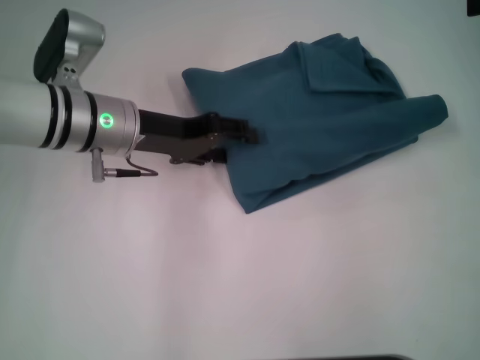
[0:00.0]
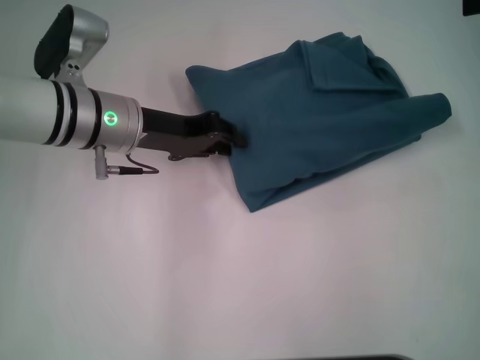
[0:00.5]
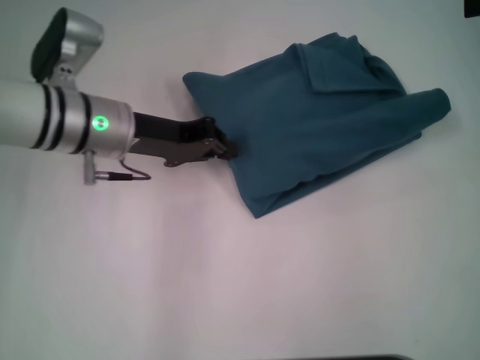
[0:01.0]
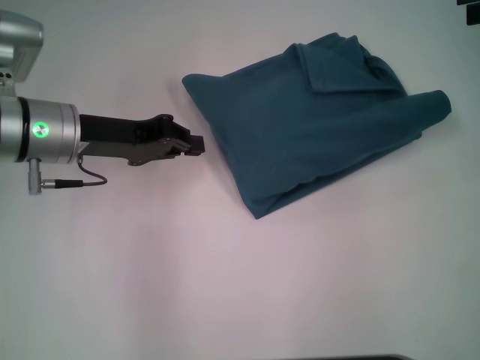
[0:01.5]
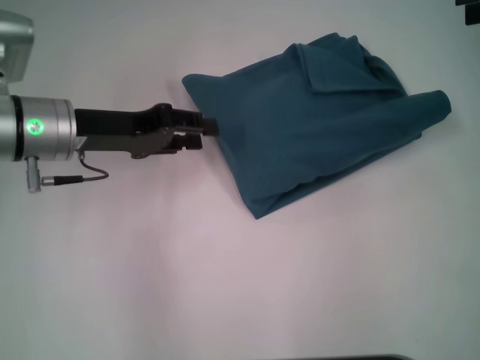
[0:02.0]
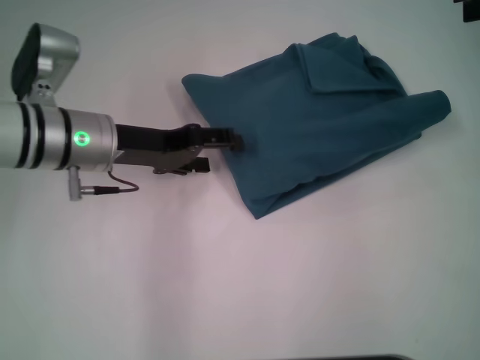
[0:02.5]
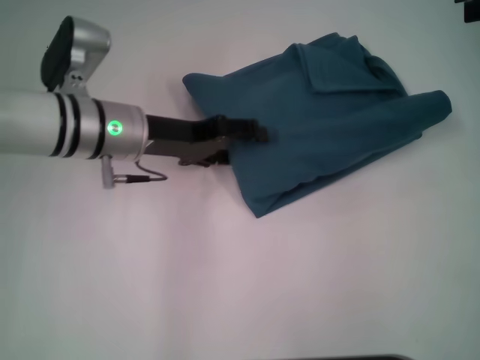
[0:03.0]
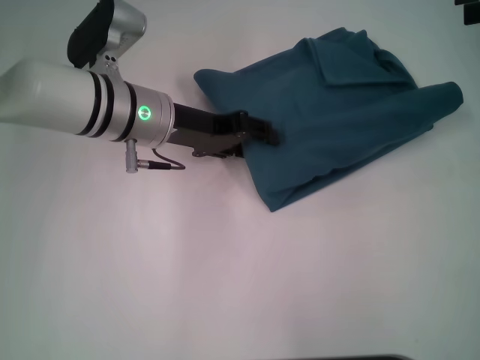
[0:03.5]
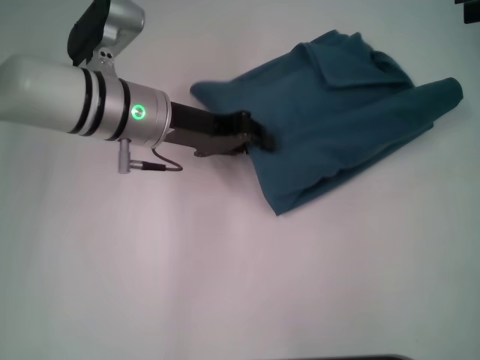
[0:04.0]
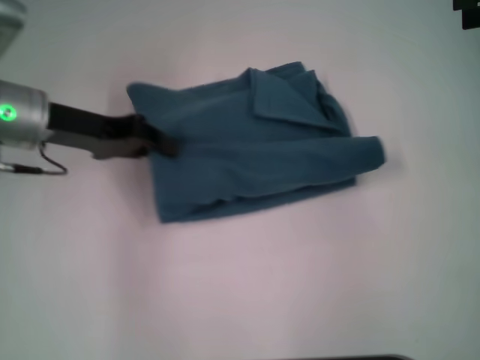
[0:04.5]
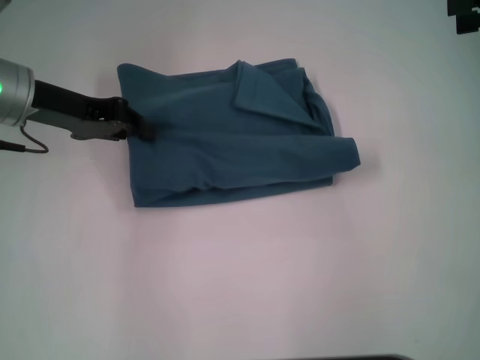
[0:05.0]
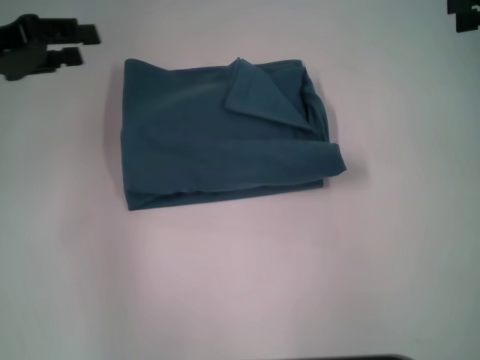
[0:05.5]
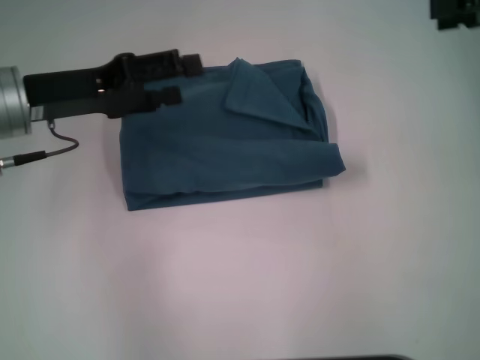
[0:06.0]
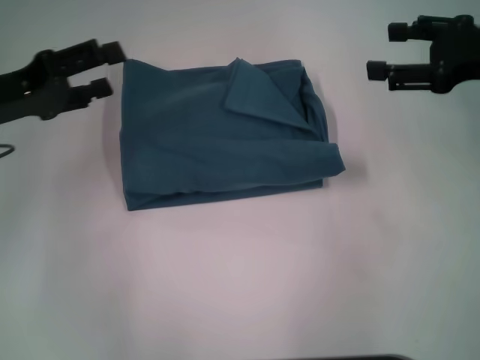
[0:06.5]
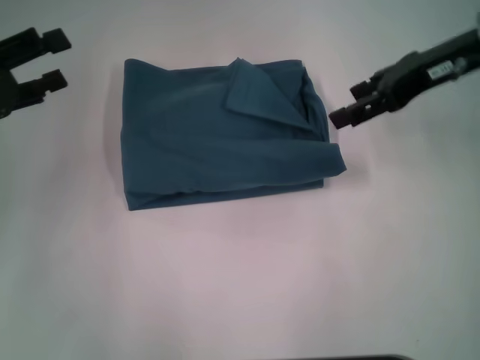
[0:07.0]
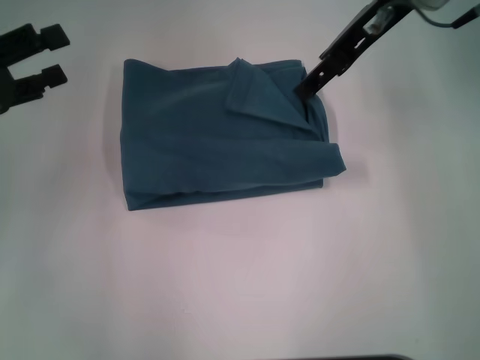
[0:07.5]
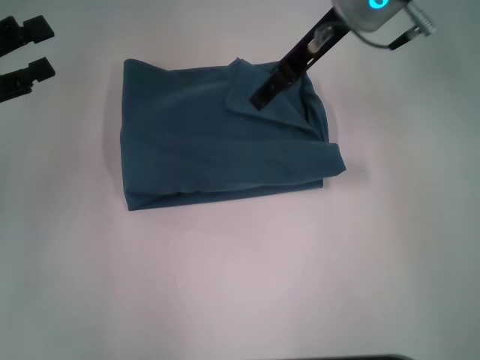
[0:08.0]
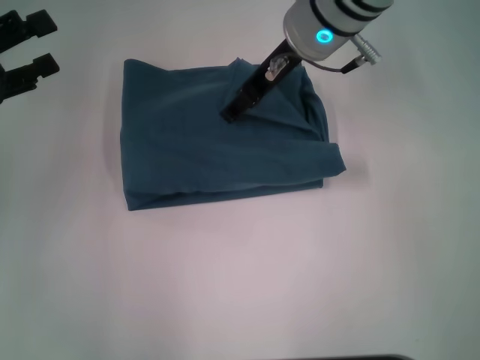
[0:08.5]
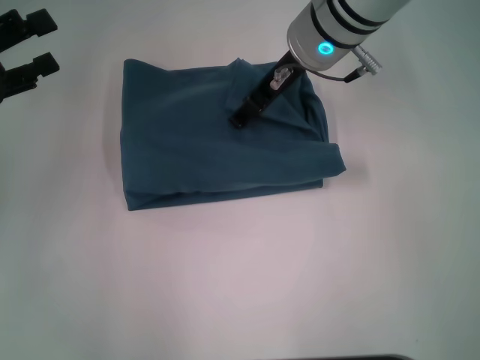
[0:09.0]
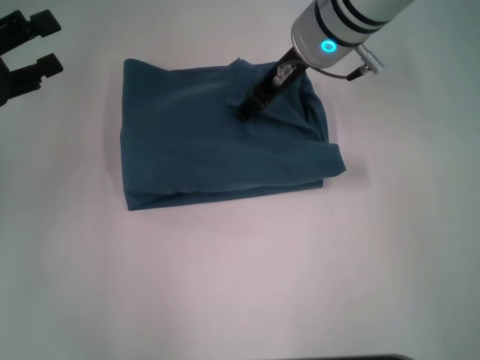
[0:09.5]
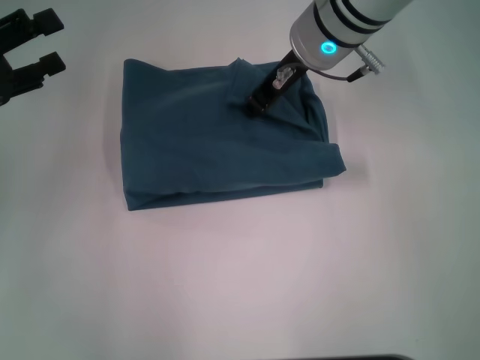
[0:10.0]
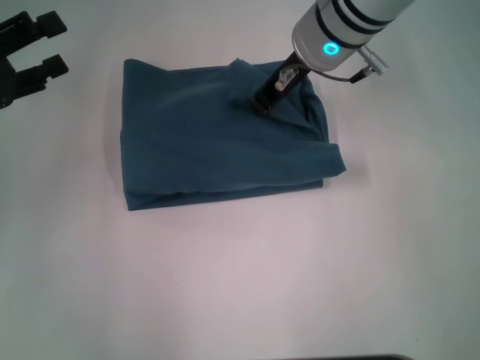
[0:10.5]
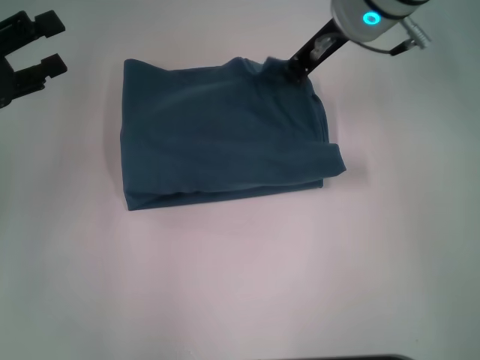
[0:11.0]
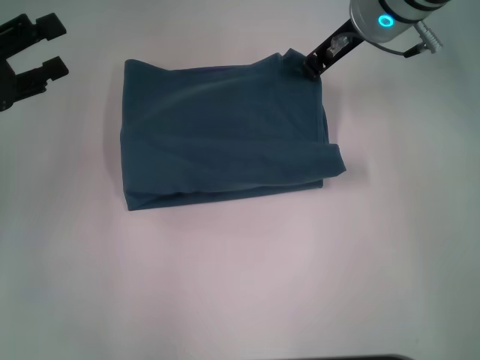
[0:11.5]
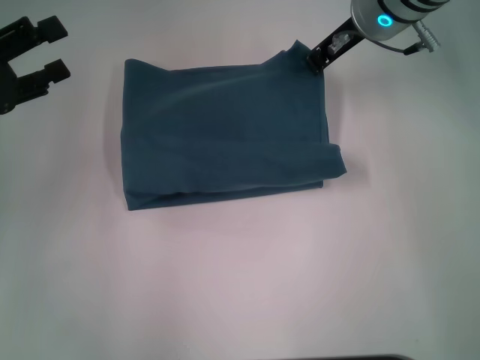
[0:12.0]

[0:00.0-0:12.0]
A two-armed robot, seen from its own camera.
0.0 to 2.0 s: The left gripper heads to the left, covering roughly 5 cm, and closes.
2.0 to 4.0 s: The left gripper shifts about 10 cm to the right, and opens, then closes once more.
4.0 to 6.0 s: The left gripper shifts some 10 cm to the left, and opens its fingers.
6.0 to 8.0 s: The left gripper moves to the left, roughly 10 cm; the right gripper travels to the left by approximately 25 cm.
8.0 to 10.0 s: The right gripper ends up some 5 cm from where it was, and closes its fingers.
10.0 to 12.0 s: The right gripper goes some 5 cm to the right, and closes.

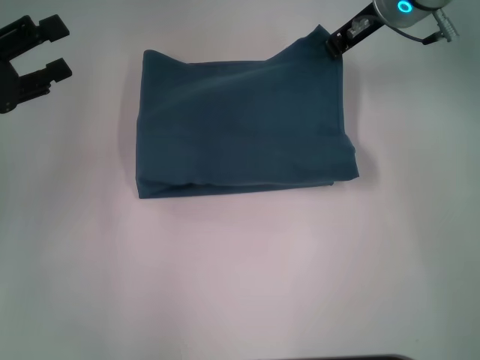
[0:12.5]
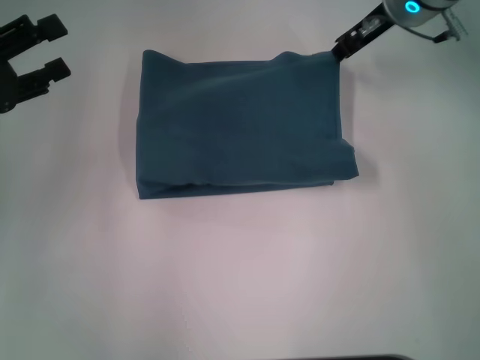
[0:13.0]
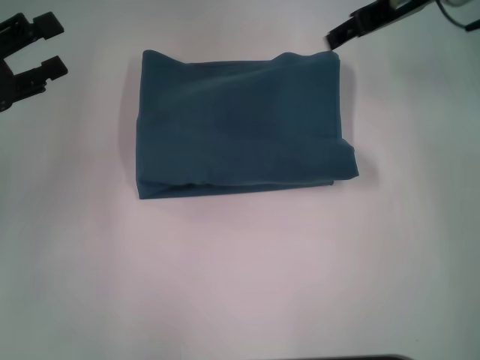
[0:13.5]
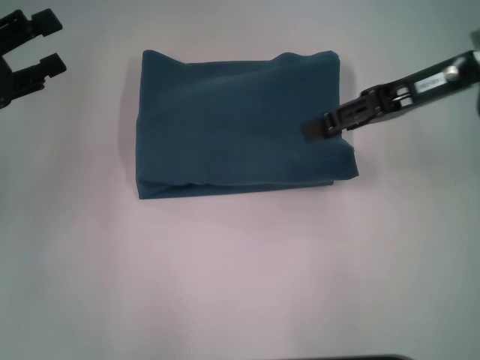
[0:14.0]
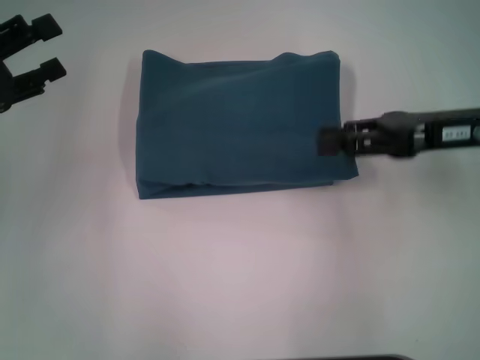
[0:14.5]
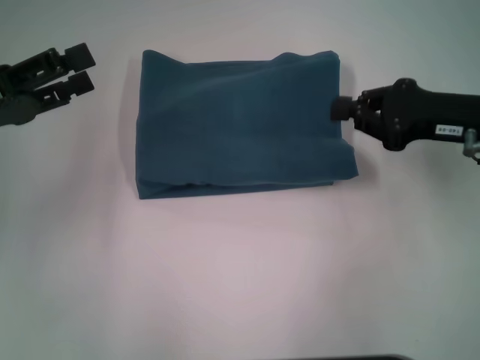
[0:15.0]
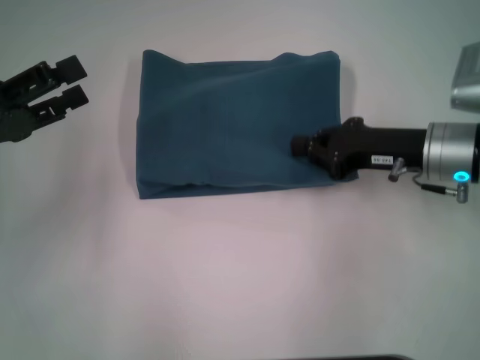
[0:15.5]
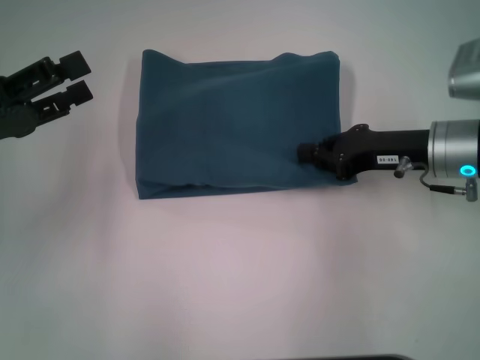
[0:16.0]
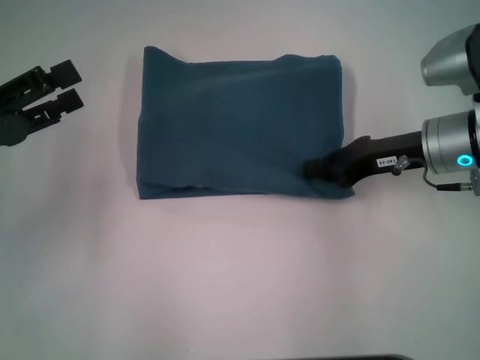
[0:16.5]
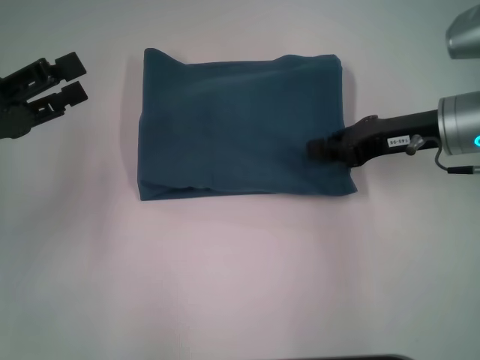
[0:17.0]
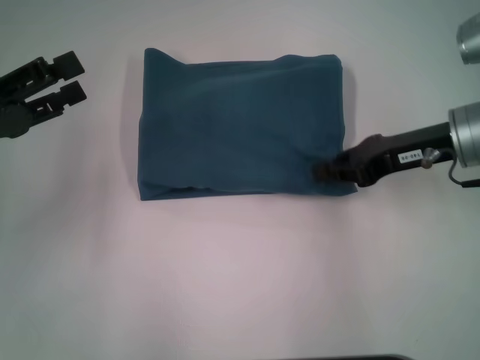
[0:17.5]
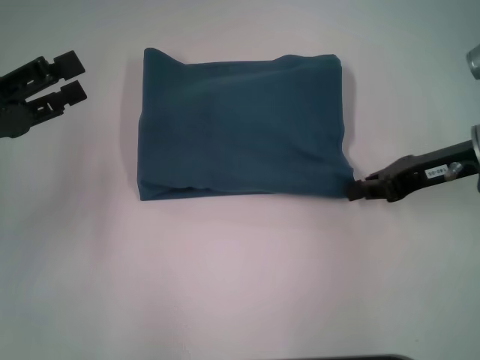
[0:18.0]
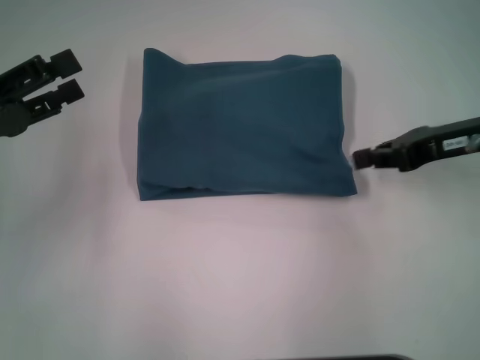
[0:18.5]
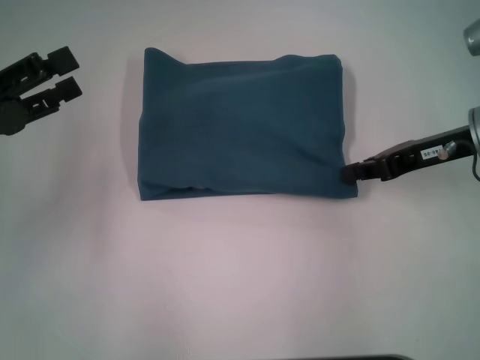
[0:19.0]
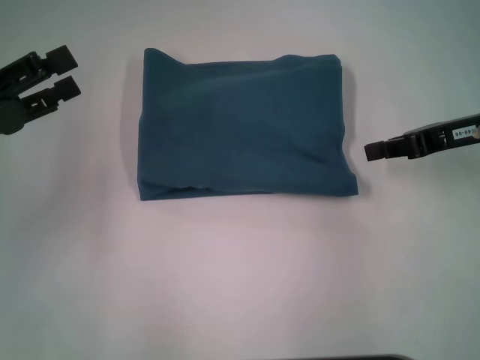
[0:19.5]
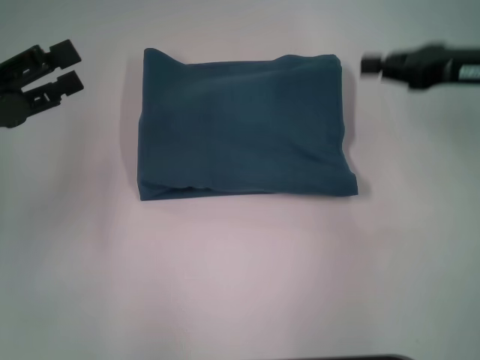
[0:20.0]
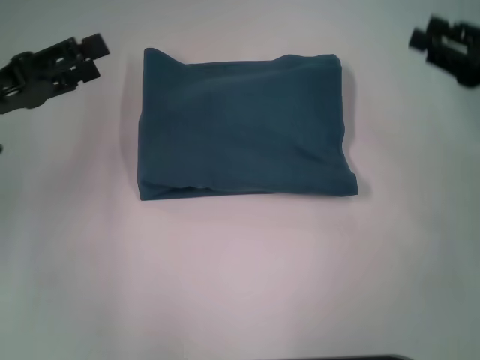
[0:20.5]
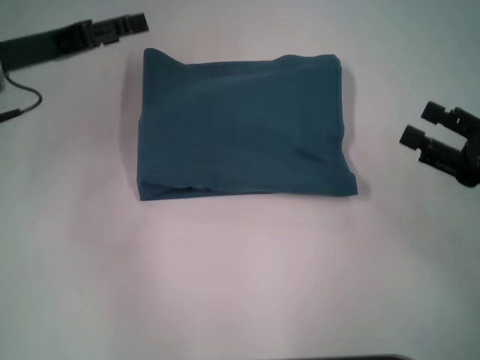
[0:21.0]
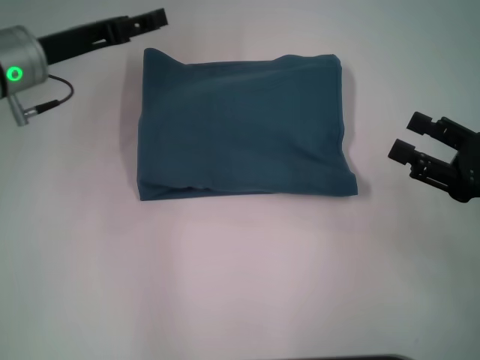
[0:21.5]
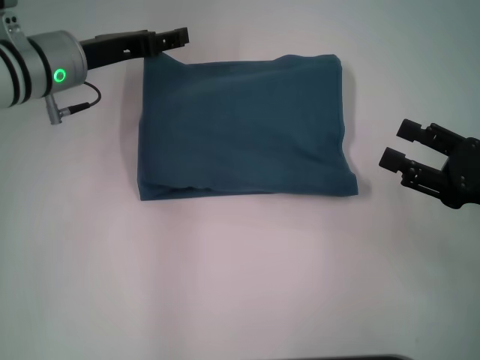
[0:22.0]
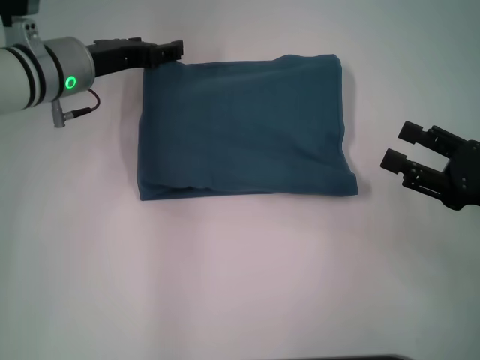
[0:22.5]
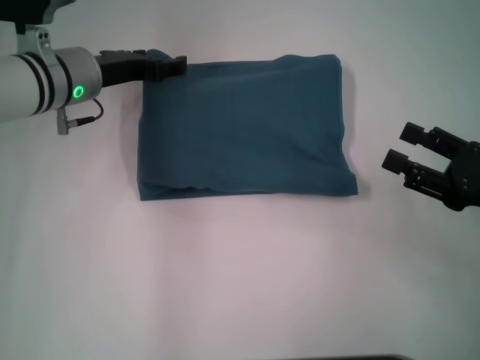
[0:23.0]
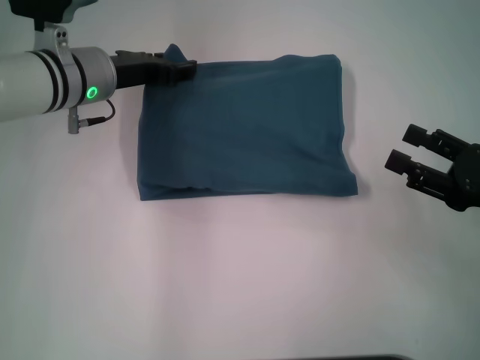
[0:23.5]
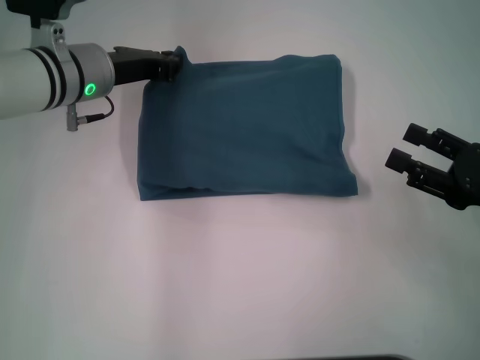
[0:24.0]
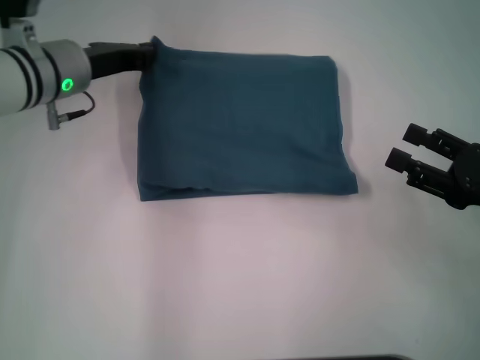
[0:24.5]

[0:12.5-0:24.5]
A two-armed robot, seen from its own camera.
12.5 to 14.5 s: The right gripper moves backward, to the right and downward, approximately 15 cm, and opens its fingers.
14.5 to 16.5 s: The right gripper travels downward by some 5 cm, and closes.
16.5 to 18.5 s: The right gripper changes place by some 5 cm.
18.5 to 20.5 s: The right gripper ends up roughly 5 cm from where it was.
20.5 to 22.5 s: The right gripper shifts approximately 10 cm backward, and opens its fingers. Meanwhile the left gripper shifts roughly 15 cm to the right and forward.
22.5 to 24.5 s: The left gripper closes up.

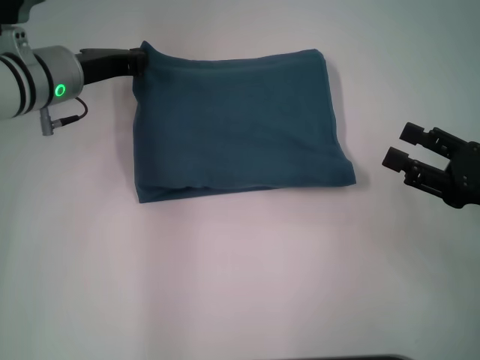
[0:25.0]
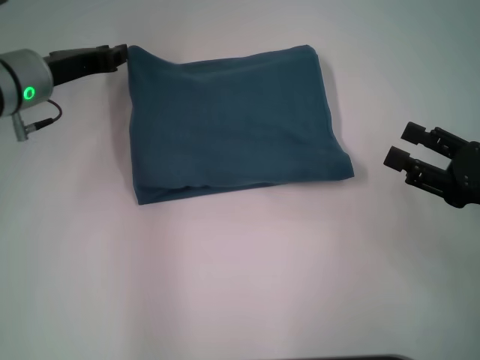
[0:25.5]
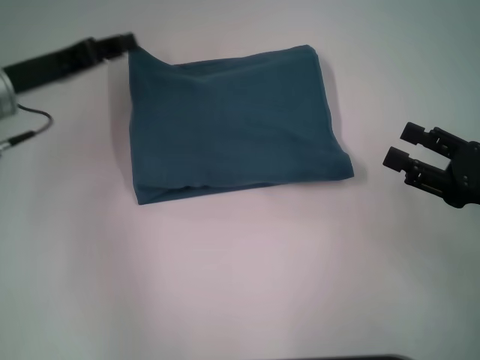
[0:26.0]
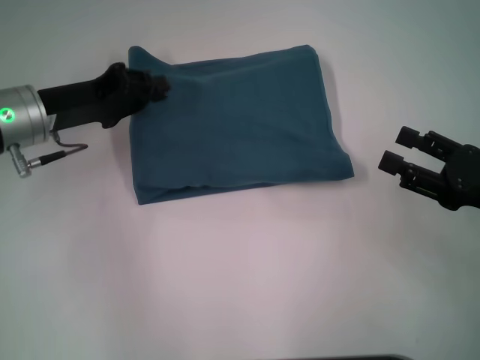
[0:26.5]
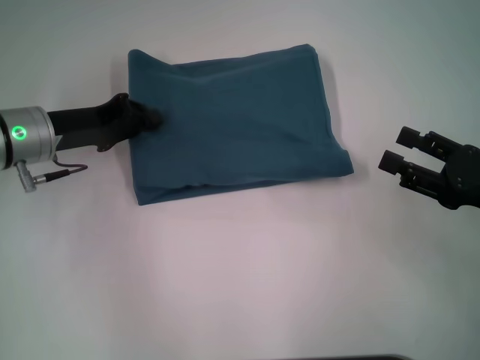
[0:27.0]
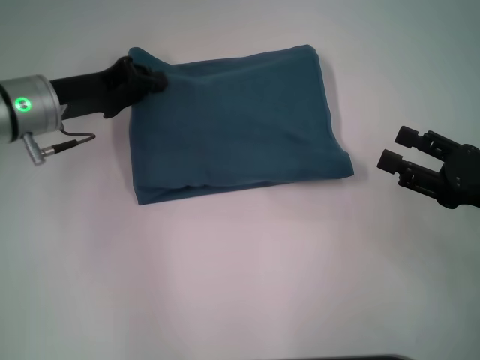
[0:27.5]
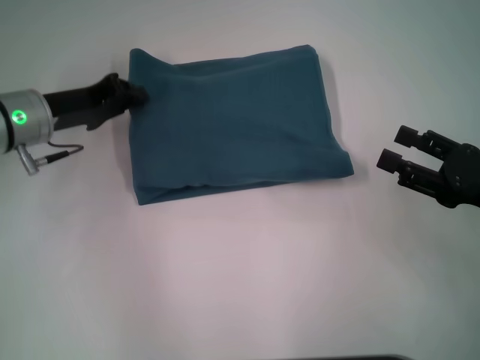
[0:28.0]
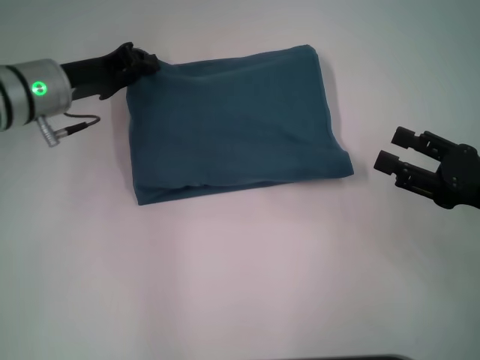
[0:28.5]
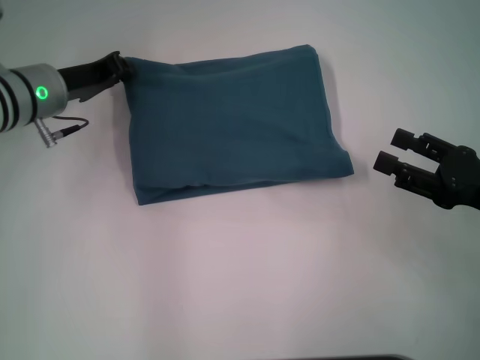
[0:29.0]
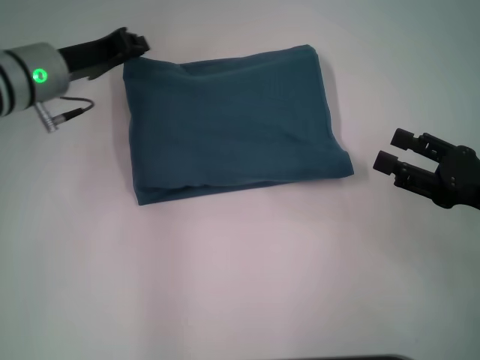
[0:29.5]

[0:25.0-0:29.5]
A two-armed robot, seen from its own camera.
25.0 to 27.0 s: The left gripper shifts by some 5 cm, and opens, then closes again.
27.0 to 29.5 s: The left gripper shifts by roughly 5 cm.
